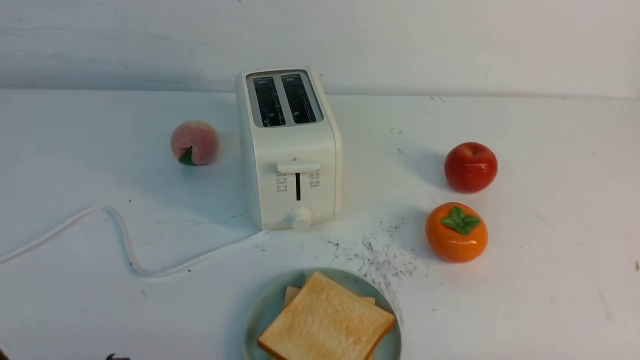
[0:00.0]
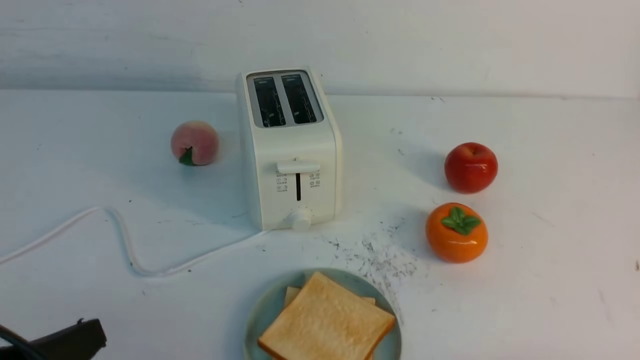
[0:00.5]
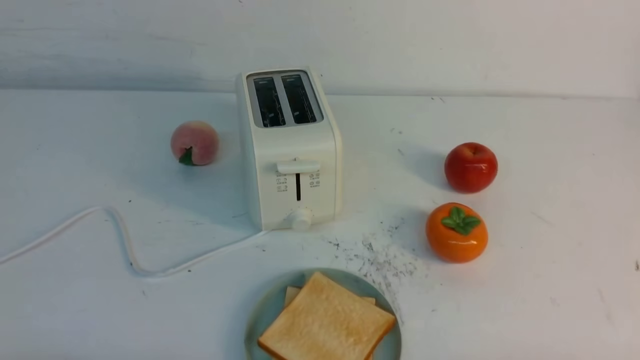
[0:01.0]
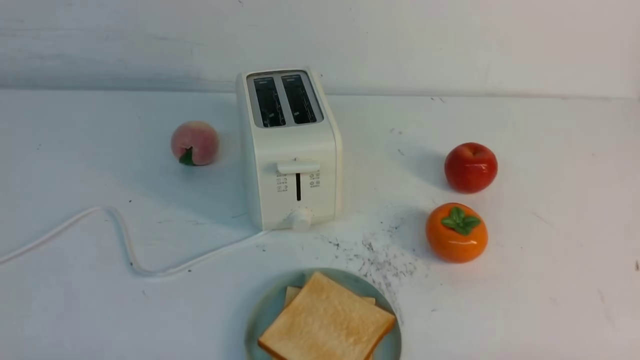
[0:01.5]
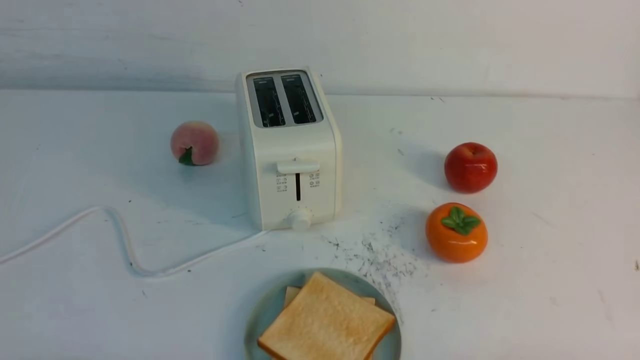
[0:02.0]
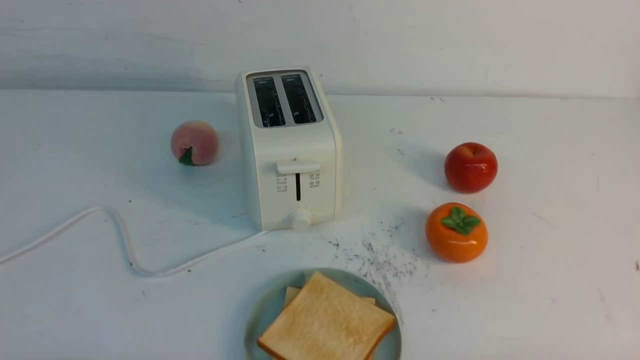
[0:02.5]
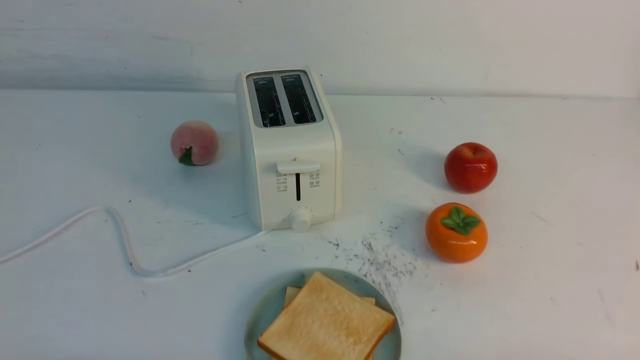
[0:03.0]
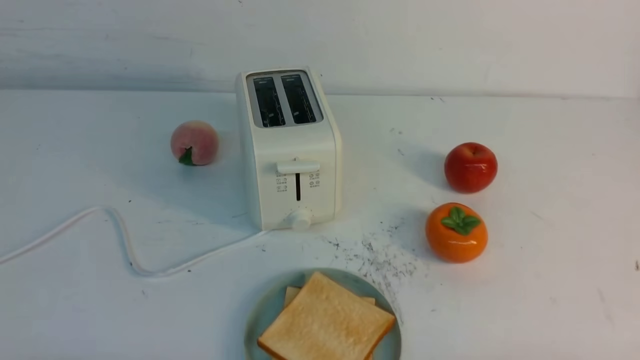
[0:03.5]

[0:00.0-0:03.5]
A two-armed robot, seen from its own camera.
Task of the whole recording: take toasted bread from bread machine on white table place on plate.
0:02.0 to 0:03.5: The two grippers keep their place.

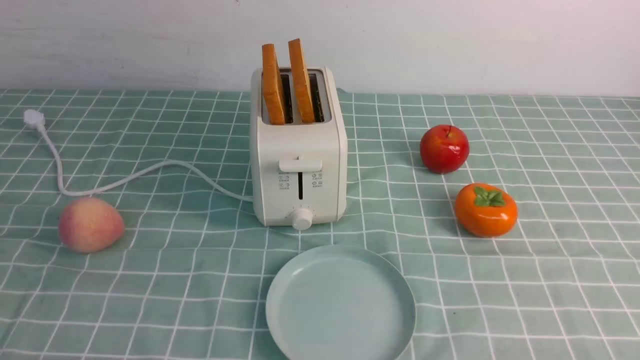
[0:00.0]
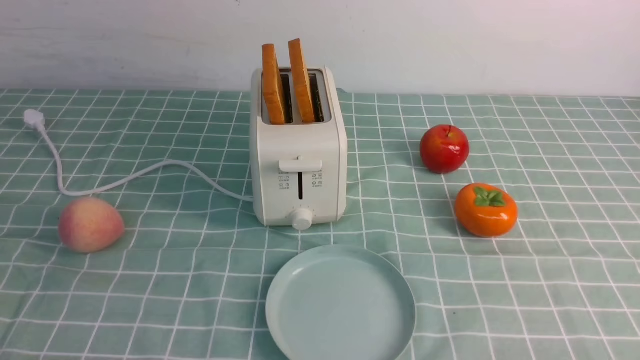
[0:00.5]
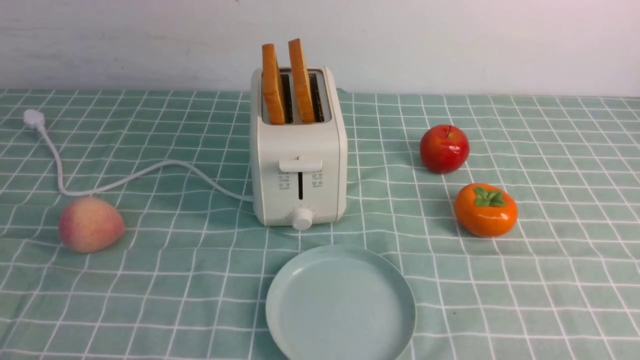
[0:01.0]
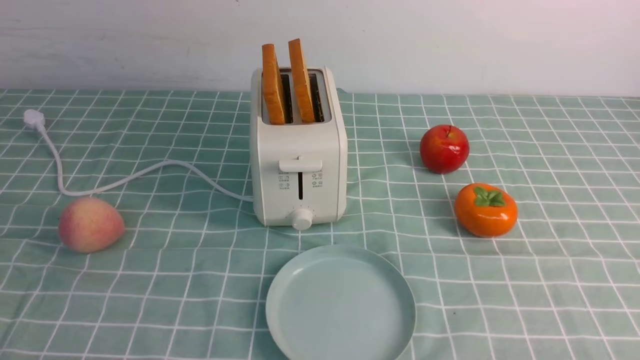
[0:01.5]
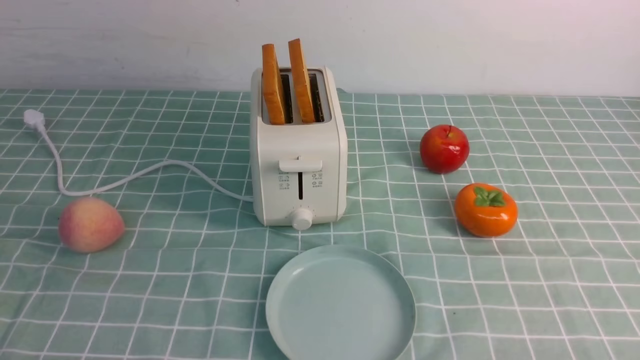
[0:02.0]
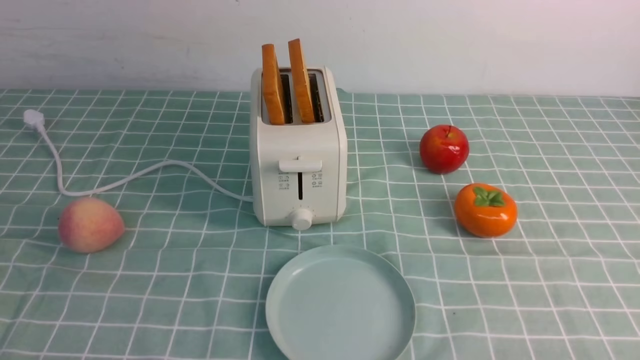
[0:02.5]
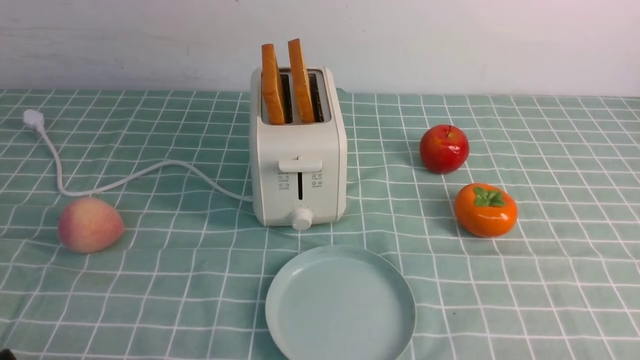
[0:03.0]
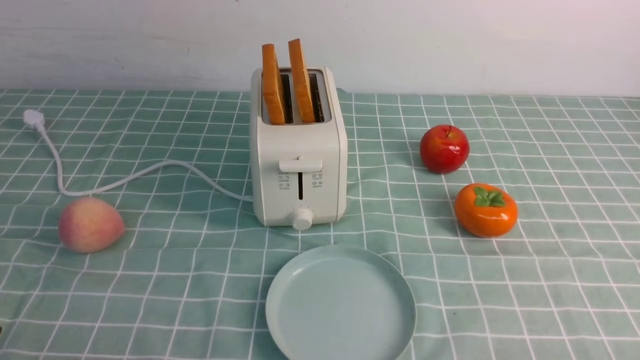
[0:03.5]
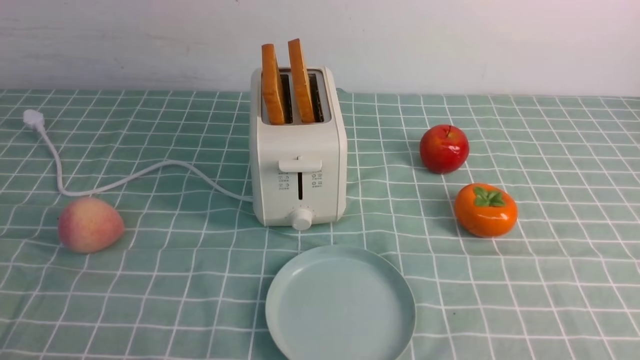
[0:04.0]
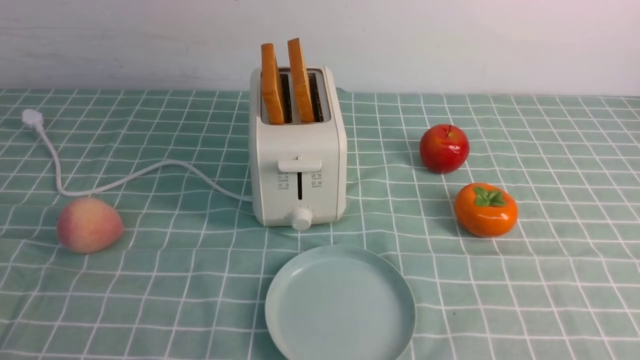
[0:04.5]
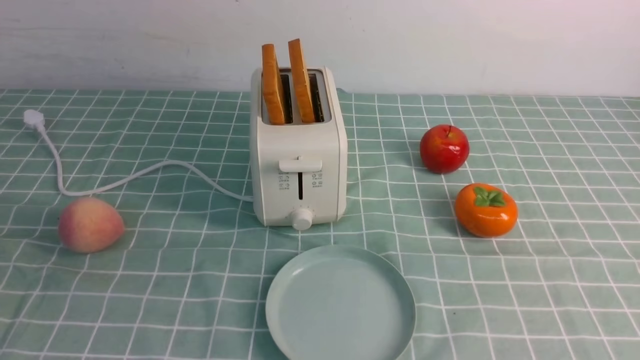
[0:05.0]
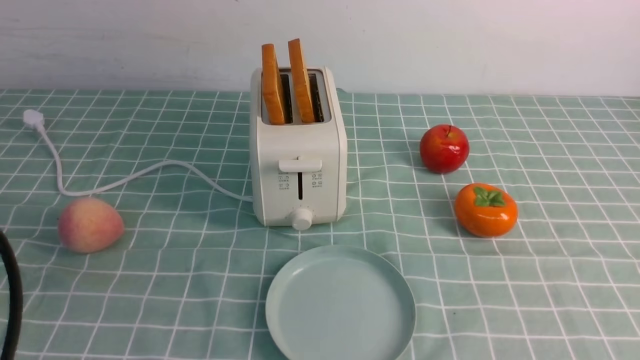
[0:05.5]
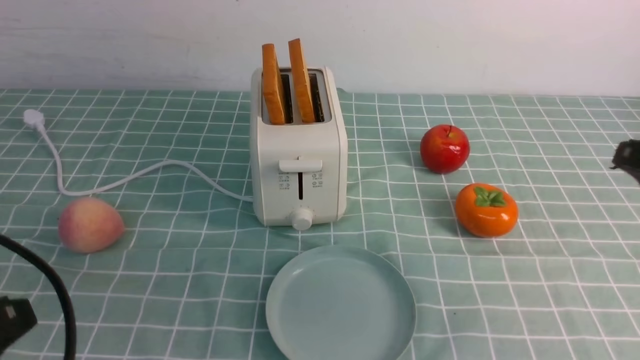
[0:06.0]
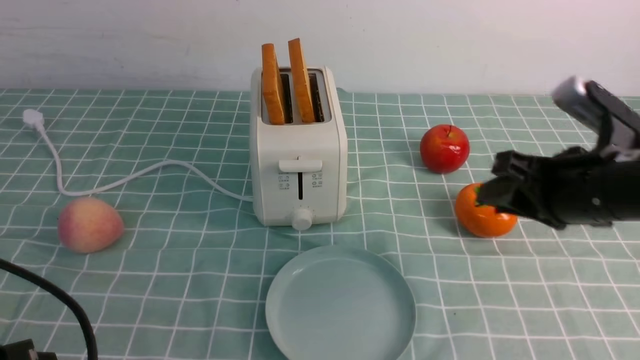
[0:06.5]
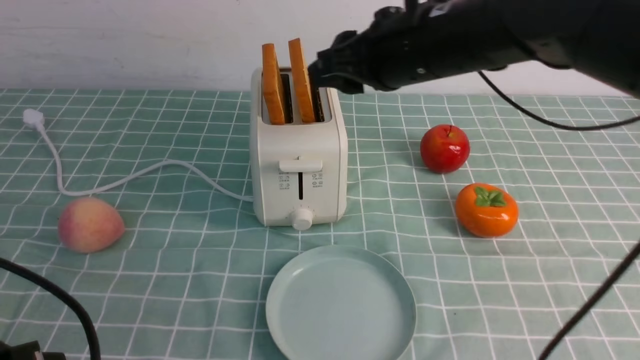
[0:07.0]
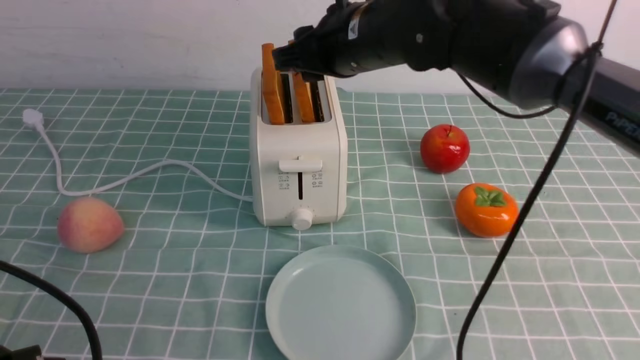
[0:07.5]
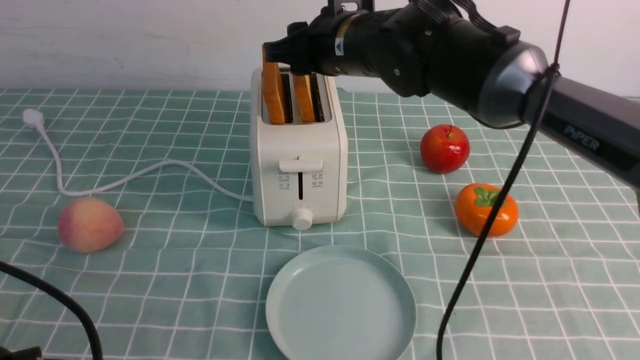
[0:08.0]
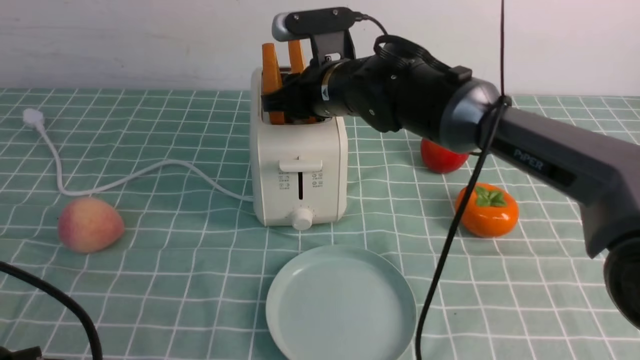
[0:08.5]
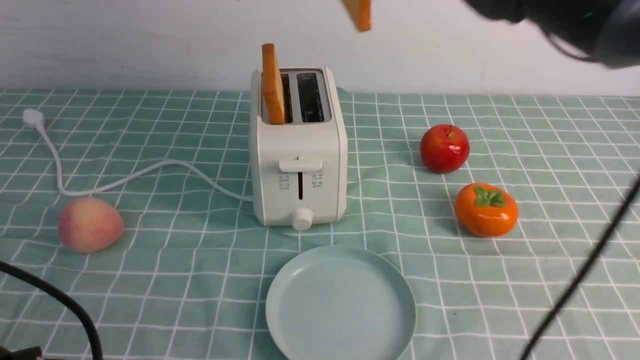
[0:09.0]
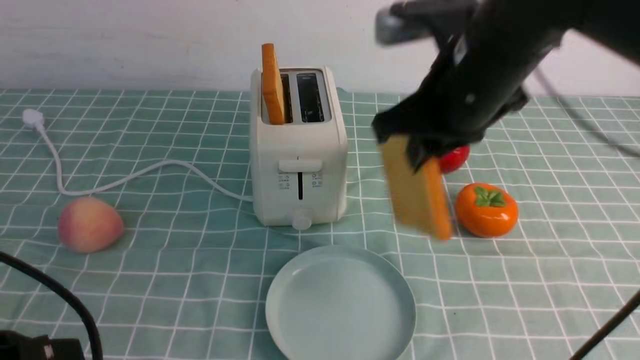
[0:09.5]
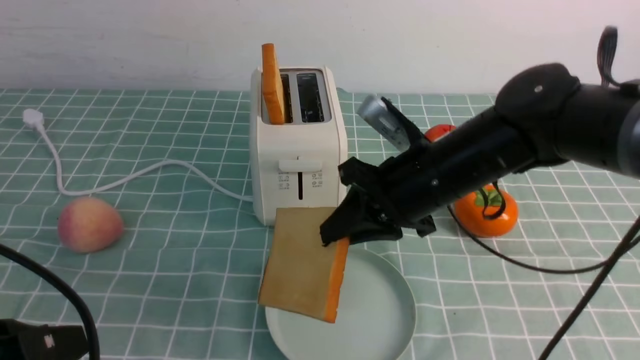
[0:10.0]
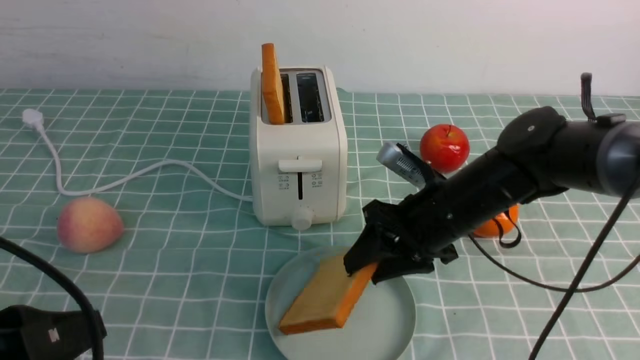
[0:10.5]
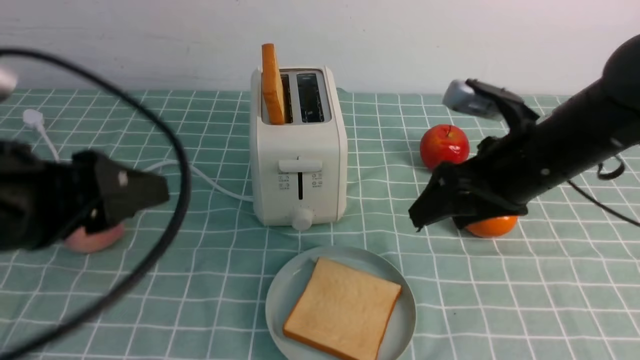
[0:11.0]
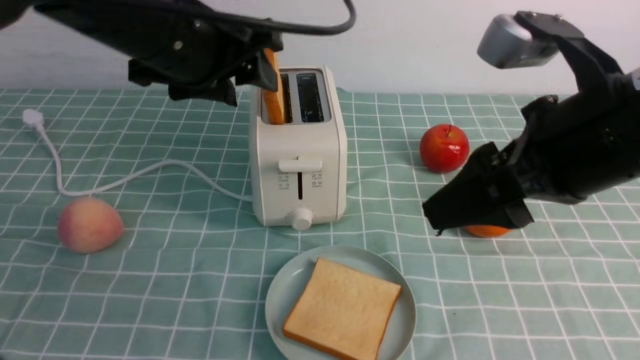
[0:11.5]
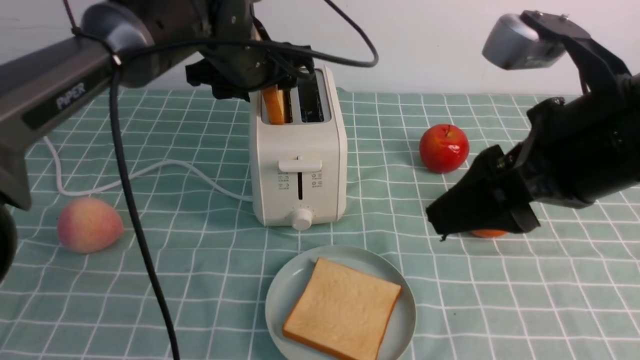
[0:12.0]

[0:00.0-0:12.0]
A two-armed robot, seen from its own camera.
Task of the whole recording: take toasted bread from bread machine on blue coffee table place on plate.
Step, 0:00.0 to 0:09.0: use the right arm to take out a slice of bread.
Step, 0:09.5 to 0:11.0: use the right arm to put a slice of bread into the plate.
0:00.0 to 0:02.0: Neither gripper changes place.
0:04.0 to 0:06.0: The right gripper is displaced forward and upward by about 20 cm. The left gripper travels upward by about 5 cm.
0:06.0 to 0:08.0: The right gripper goes some 35 cm to the left and forward.
0:08.0 to 0:10.0: The right gripper goes about 15 cm backward, downward and to the right, and closes.
0:10.0 to 0:12.0: The right gripper moves upward, backward and to the right, roughly 20 cm, and opens its fingers; the left gripper travels forward and to the right by approximately 35 cm, and opens its fingers.

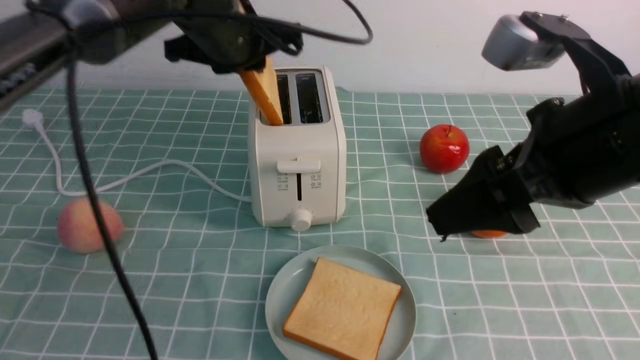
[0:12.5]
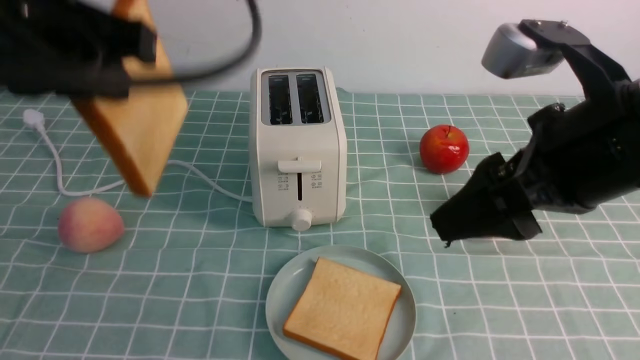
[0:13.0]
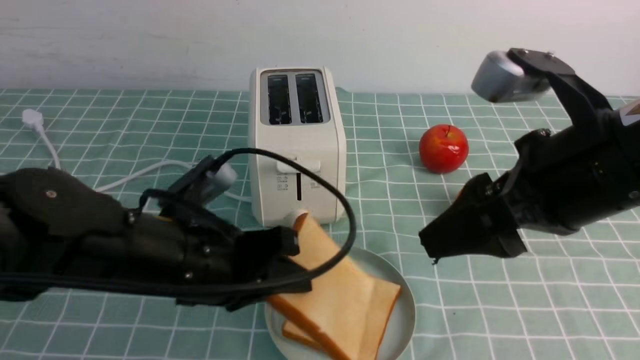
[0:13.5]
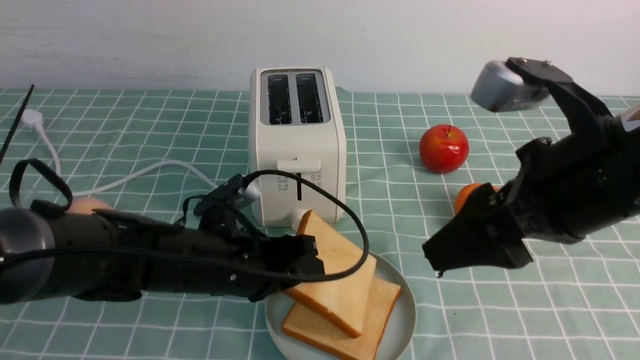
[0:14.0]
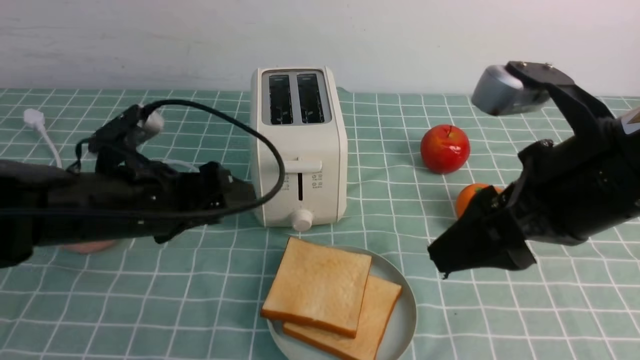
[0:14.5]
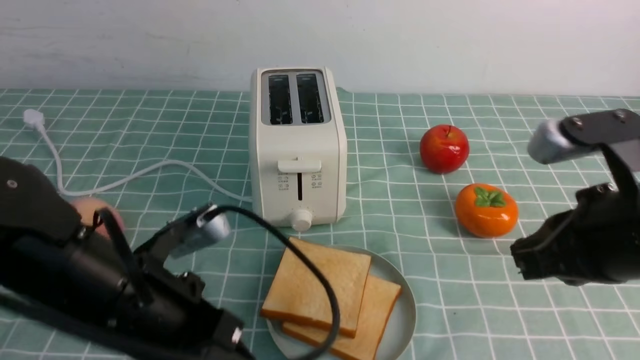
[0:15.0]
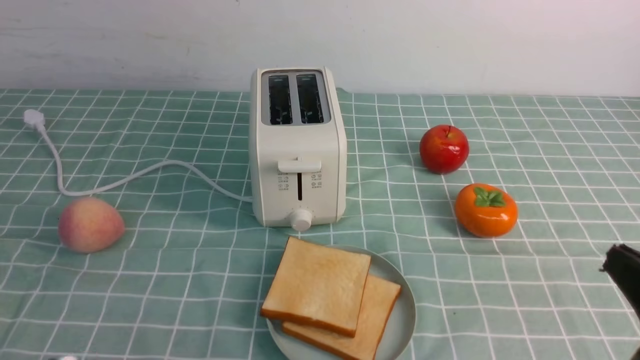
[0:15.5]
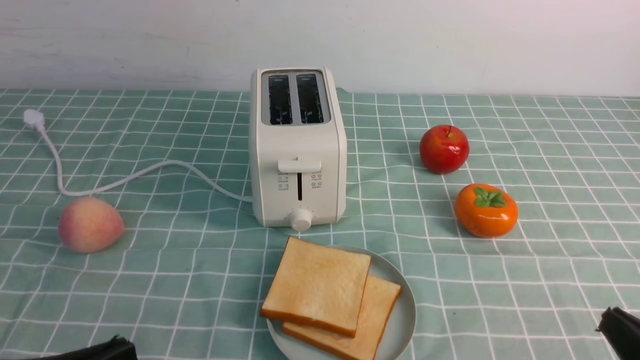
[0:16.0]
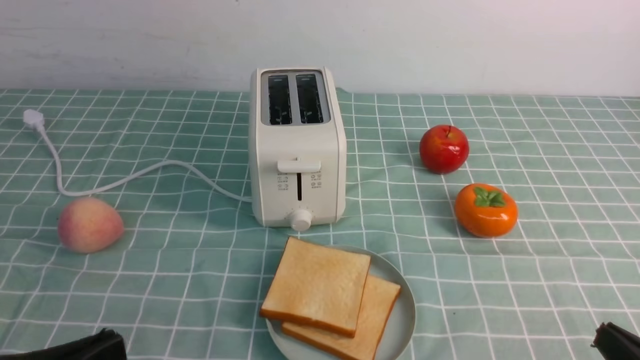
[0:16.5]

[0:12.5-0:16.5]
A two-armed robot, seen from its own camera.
Task of the whole recording: take toasted bread from bread machine on blue coffee table place on plate.
Step, 0:13.0 to 0:15.0: use the left arm to put a slice of bread into the empty plate.
0:12.5 to 0:14.5: The left gripper moves downward and backward, some 20 cm, and opens up.
0:14.5 to 0:16.5: The left gripper heads backward, covering approximately 20 cm, and closes up. Meanwhile the right gripper shifts approximately 25 cm downward, backward and to the right, and closes its fingers.
